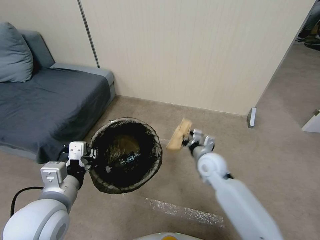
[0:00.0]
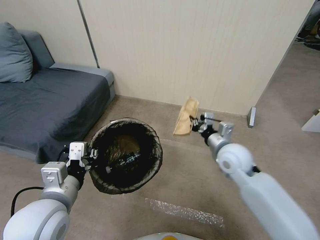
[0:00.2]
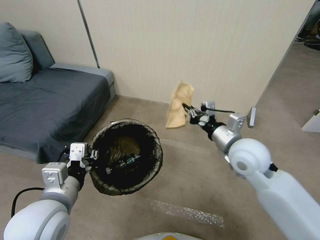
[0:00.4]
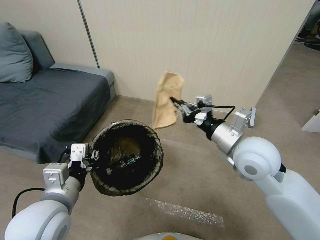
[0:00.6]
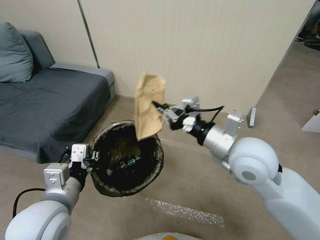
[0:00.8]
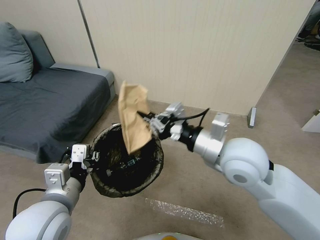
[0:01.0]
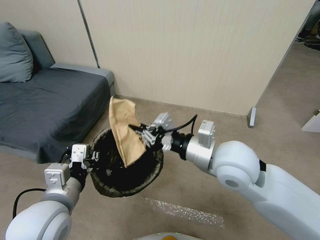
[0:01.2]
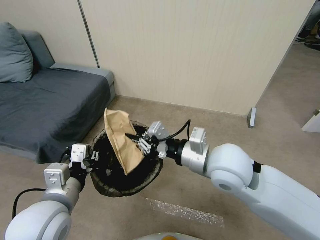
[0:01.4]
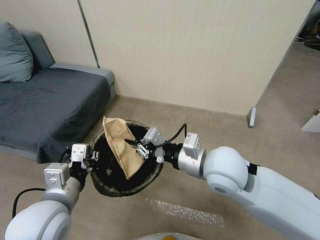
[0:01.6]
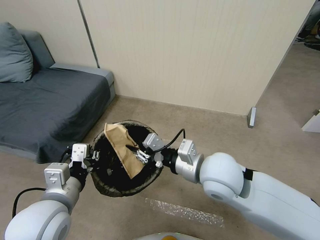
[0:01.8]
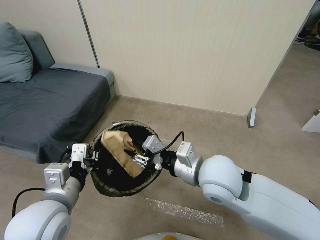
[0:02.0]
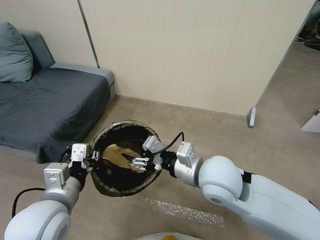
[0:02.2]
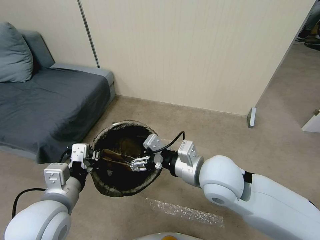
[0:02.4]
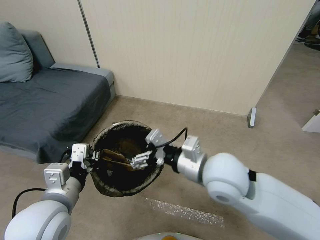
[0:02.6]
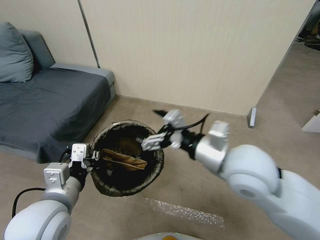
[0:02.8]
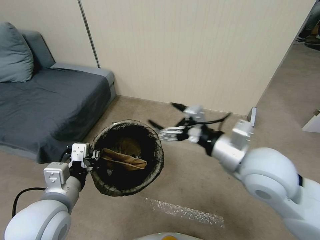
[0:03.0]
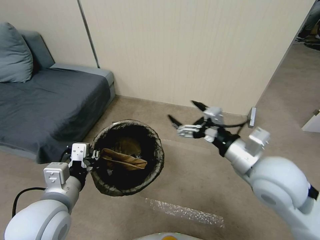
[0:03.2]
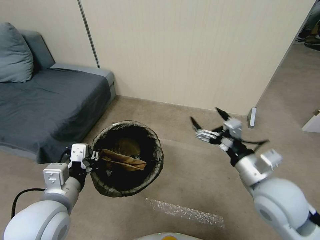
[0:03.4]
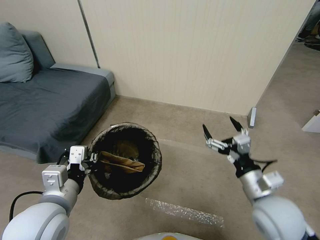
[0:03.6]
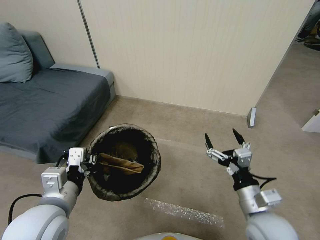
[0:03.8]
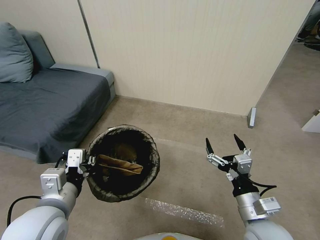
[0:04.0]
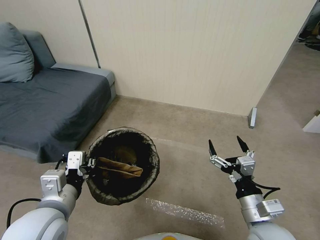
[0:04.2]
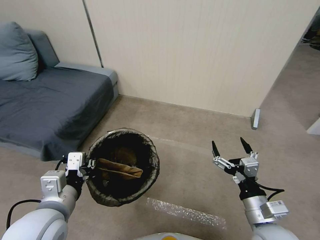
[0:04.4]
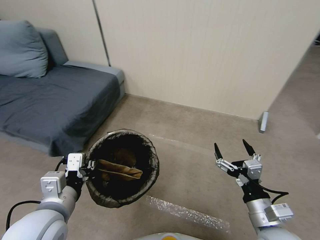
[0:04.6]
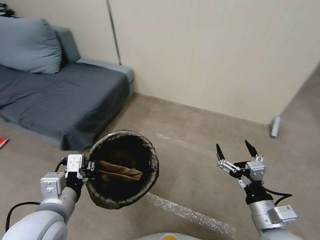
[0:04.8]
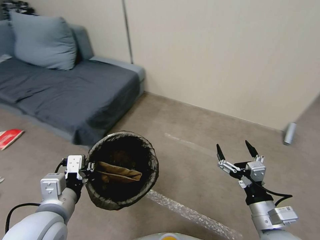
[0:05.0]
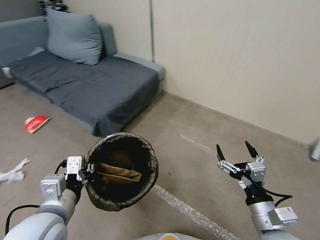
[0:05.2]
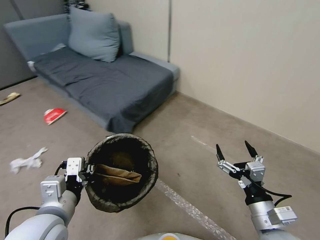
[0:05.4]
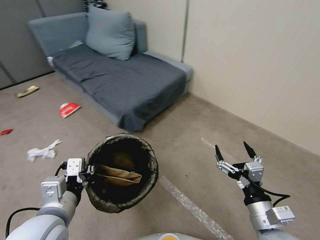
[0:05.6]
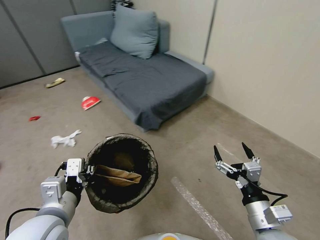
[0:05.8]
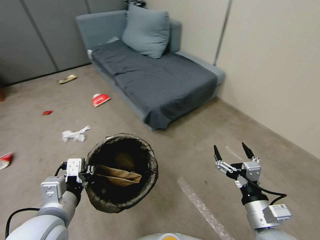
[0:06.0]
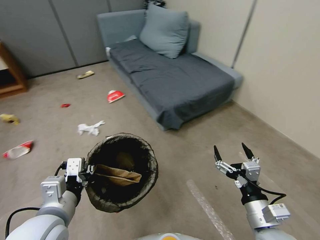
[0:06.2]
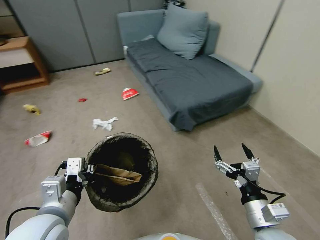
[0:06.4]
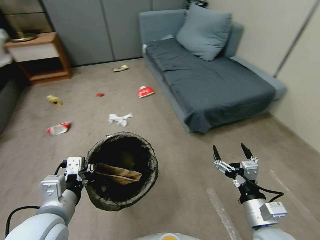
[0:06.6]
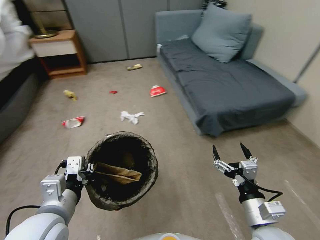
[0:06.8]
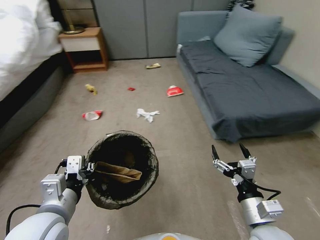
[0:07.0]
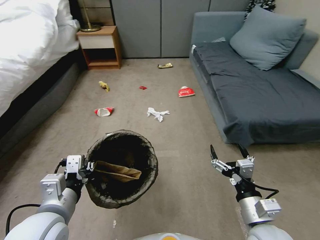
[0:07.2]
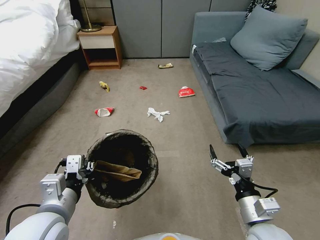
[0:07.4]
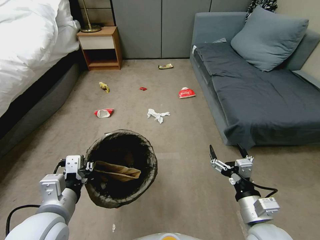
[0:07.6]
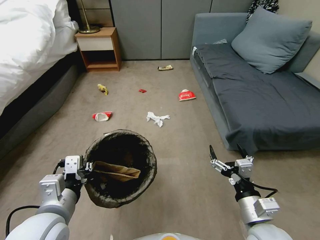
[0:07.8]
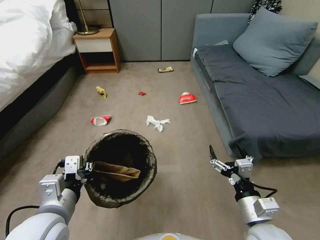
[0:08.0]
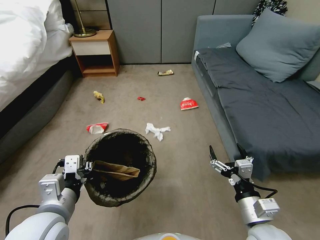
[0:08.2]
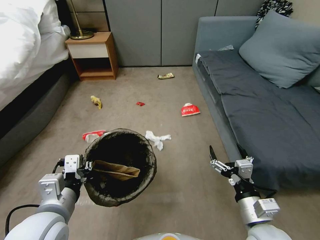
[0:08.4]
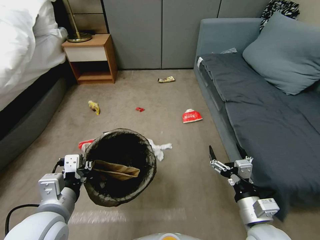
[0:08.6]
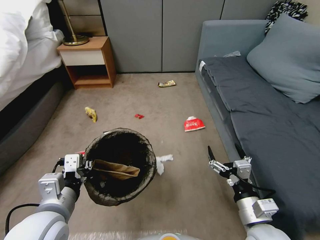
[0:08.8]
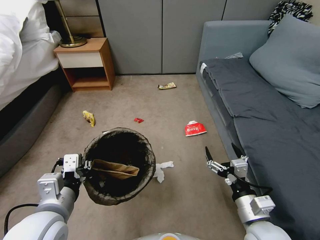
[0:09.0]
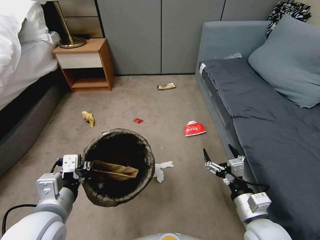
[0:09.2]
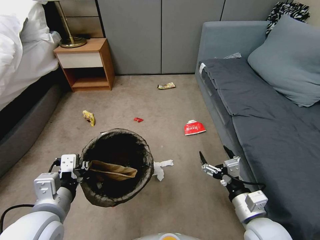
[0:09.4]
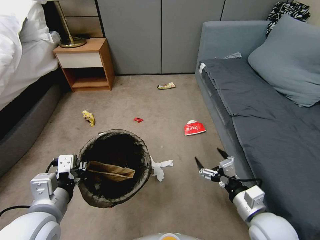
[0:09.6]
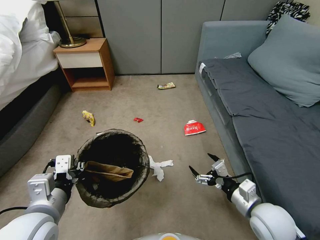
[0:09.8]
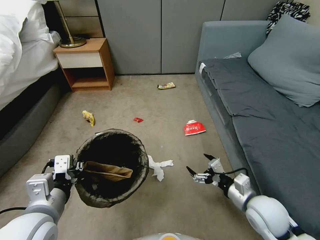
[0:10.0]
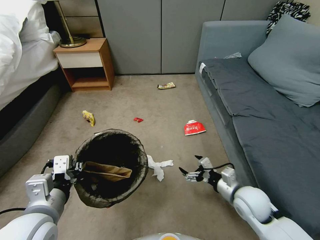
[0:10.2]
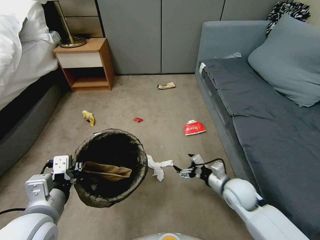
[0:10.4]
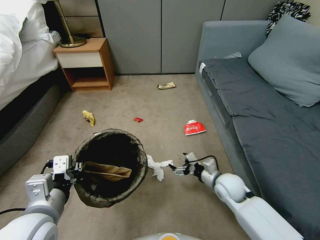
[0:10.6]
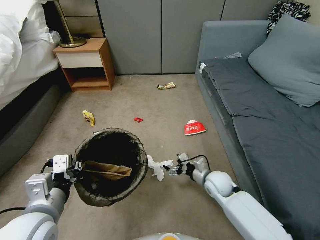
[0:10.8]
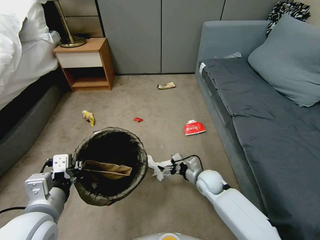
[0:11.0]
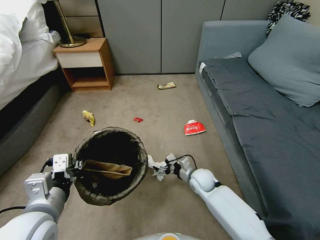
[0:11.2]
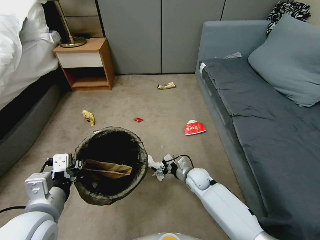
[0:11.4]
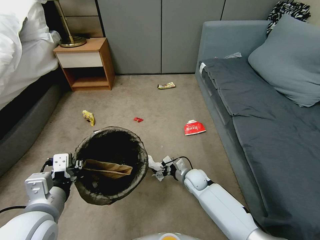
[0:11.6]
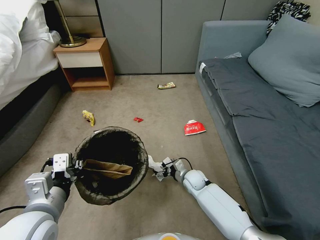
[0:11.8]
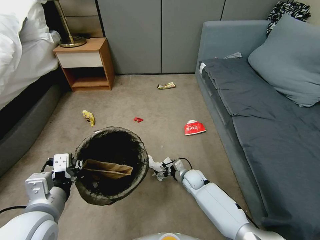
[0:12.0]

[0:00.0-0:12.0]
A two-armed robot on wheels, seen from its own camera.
Task of the whole recording: Pick up the trash bin, then pick up the garbage from the floor and place it into the trash bin.
0:00.0 to 0:01.6: The right gripper shifts roughly 20 cm upward and backward.
0:01.6 to 0:03.0: The right gripper moves to the right, roughly 5 cm, and opens up.
0:03.0 to 0:04.4: The right gripper moves downward and backward, about 20 cm.
0:09.0 to 0:10.4: The right gripper travels forward and downward by about 15 cm.
0:10.4 to 0:12.0: The right gripper travels downward, to the left and forward by roughly 20 cm.

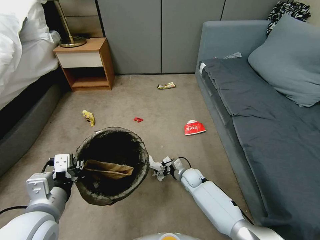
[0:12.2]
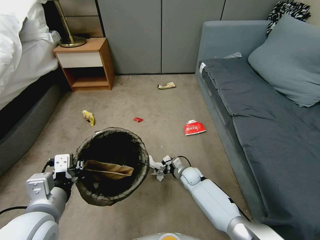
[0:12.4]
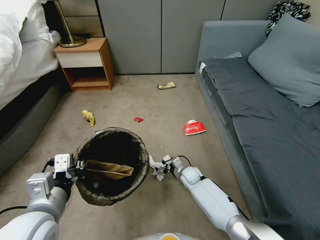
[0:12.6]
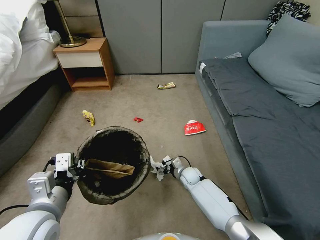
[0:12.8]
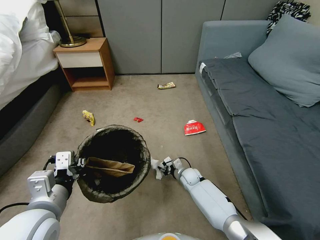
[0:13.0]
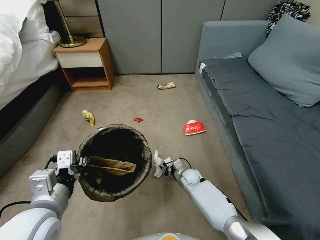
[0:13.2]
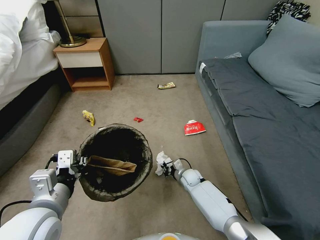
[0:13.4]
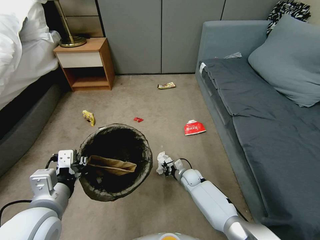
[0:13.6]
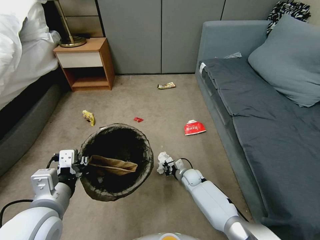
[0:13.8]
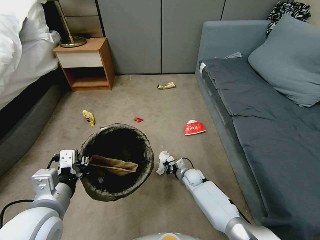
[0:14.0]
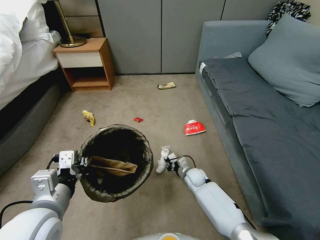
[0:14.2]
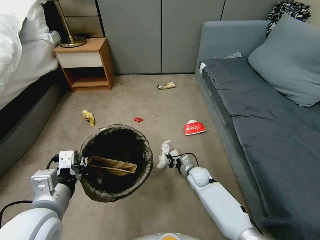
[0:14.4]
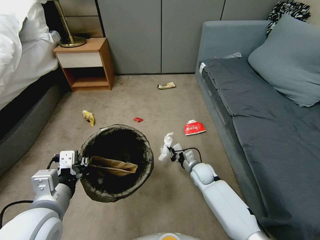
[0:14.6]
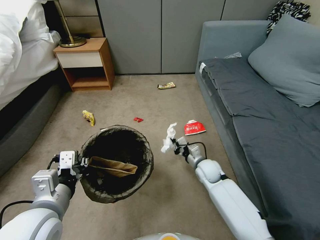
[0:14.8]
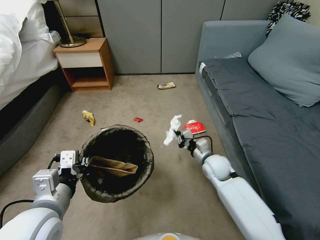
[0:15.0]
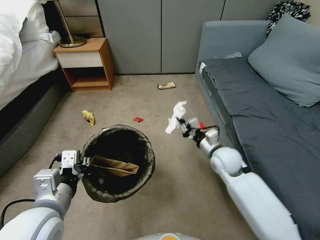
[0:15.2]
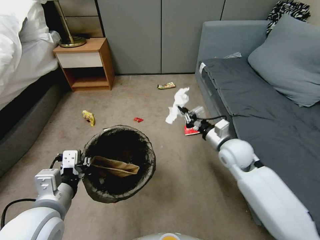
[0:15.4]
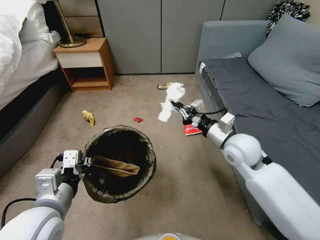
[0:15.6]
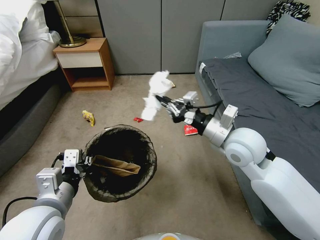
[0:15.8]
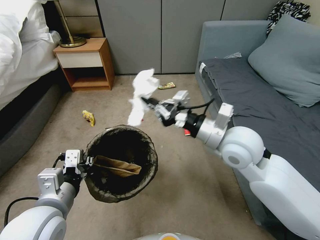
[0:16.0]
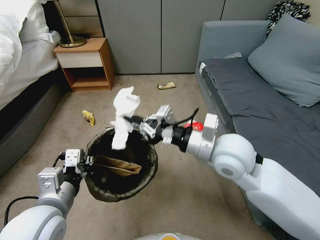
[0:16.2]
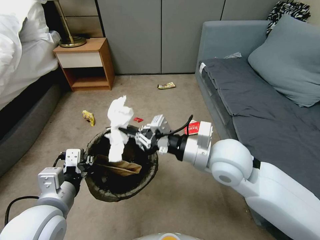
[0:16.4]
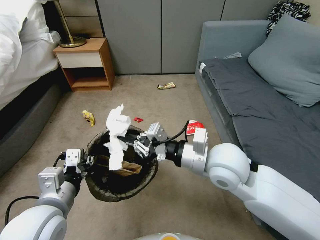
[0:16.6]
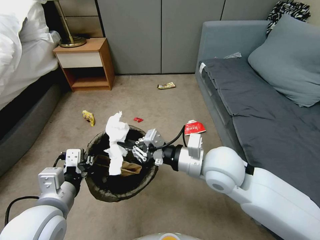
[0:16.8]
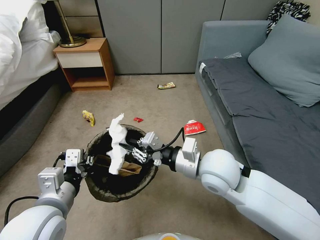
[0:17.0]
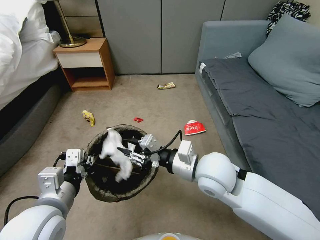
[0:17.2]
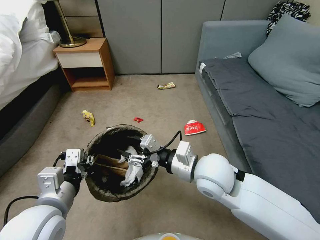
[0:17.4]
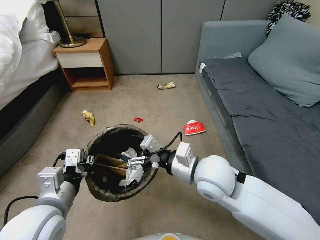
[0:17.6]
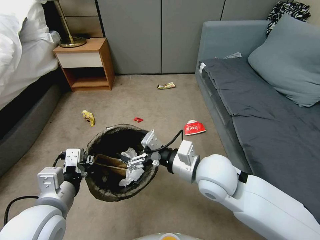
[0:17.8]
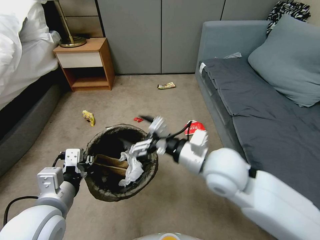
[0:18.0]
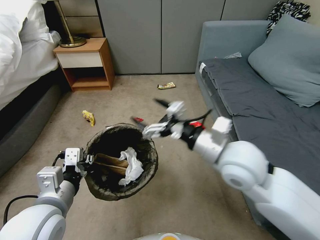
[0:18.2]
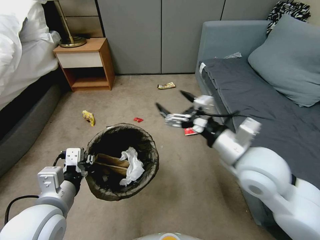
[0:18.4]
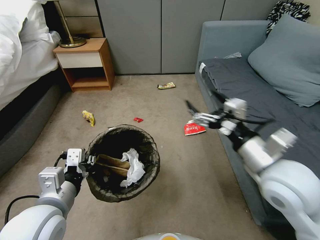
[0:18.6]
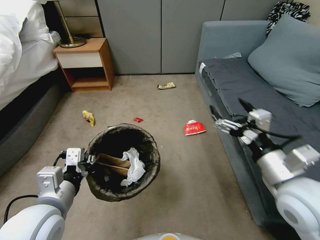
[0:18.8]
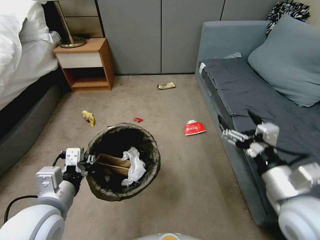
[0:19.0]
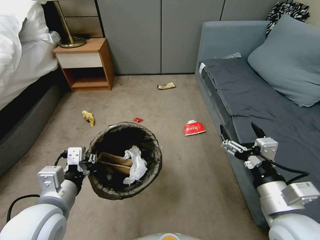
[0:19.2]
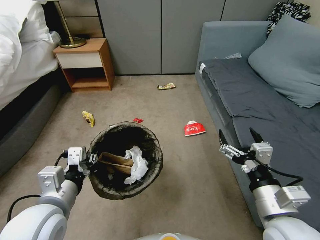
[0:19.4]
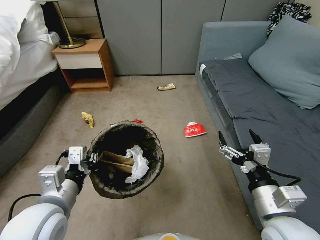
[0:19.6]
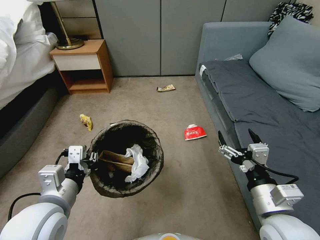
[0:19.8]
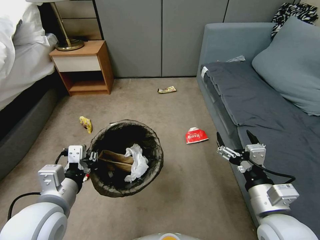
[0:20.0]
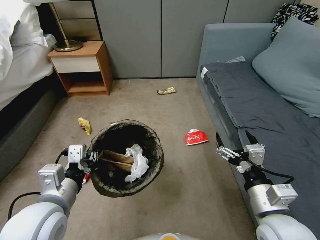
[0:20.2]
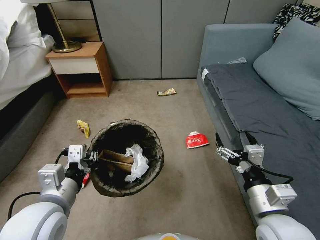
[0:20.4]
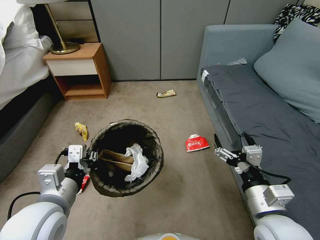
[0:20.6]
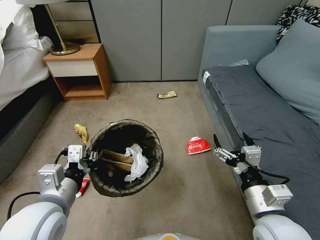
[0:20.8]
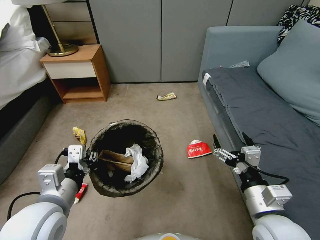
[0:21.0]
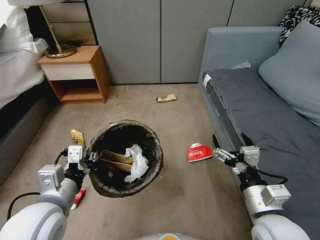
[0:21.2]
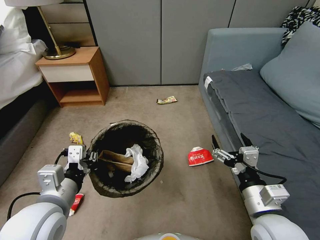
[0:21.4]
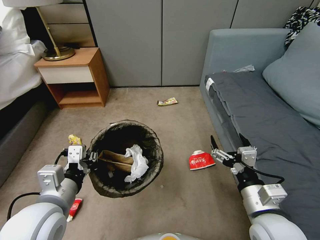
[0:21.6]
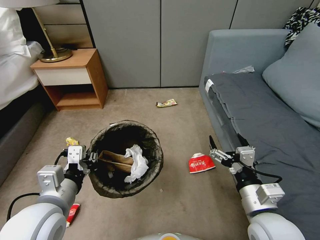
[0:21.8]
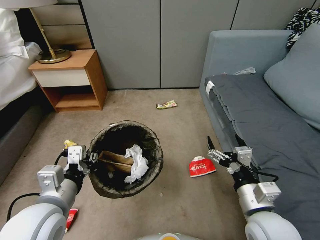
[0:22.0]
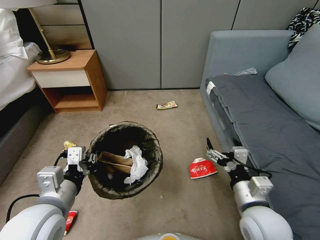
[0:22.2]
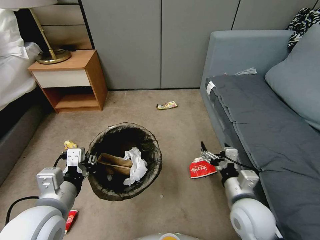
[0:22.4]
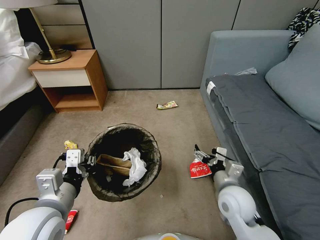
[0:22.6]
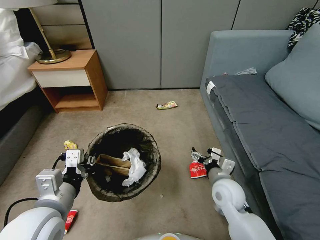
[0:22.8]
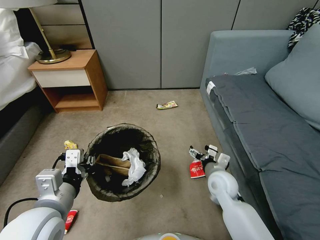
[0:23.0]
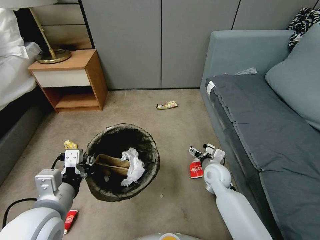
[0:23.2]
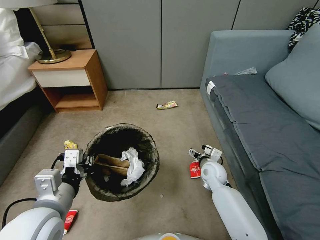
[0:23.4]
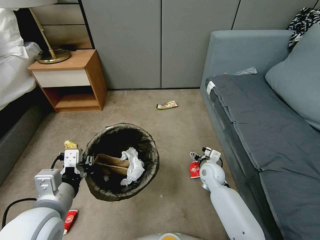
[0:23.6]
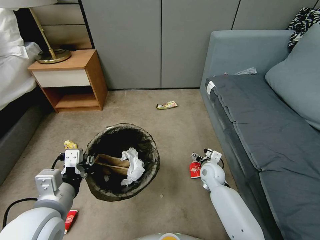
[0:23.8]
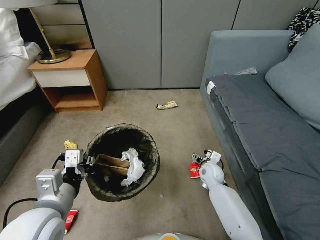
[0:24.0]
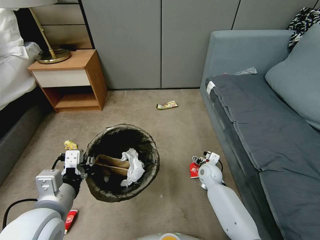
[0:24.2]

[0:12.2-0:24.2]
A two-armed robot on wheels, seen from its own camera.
Task of the whole recording: Pick up the trash bin, then pick up the garbage from the floor and place it into the trash bin.
0:12.2 to 0:13.8: The right gripper closes its fingers.
0:13.8 to 0:15.2: The right gripper moves upward, approximately 25 cm.
0:15.2 to 0:16.6: The right gripper goes approximately 20 cm upward, backward and to the left.
0:16.6 to 0:18.2: The right gripper opens.
0:18.2 to 0:19.8: The right gripper is displaced backward, to the right and downward by about 20 cm.
0:21.2 to 0:22.6: The right gripper shifts roughly 10 cm forward and downward.
0:22.6 to 0:24.2: The right gripper travels forward and downward by approximately 20 cm.
